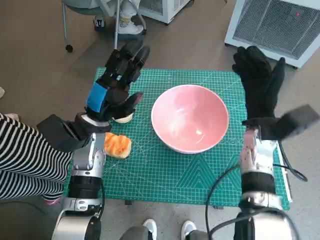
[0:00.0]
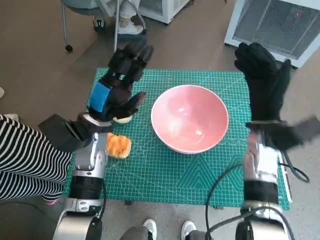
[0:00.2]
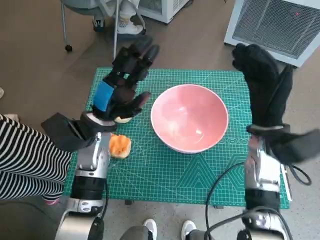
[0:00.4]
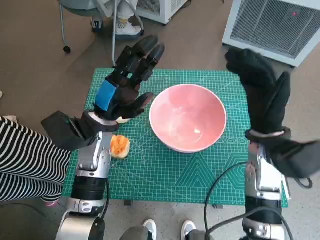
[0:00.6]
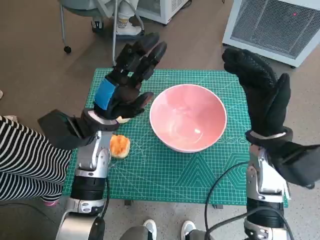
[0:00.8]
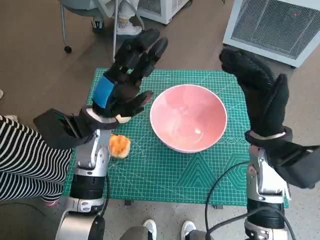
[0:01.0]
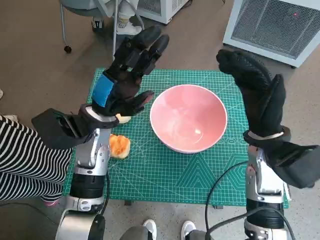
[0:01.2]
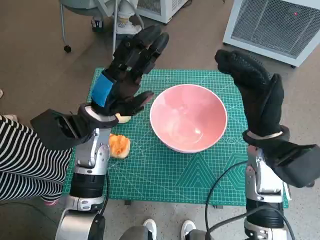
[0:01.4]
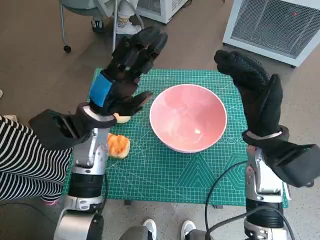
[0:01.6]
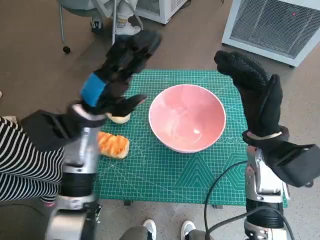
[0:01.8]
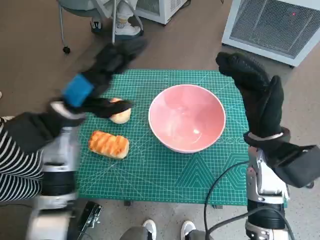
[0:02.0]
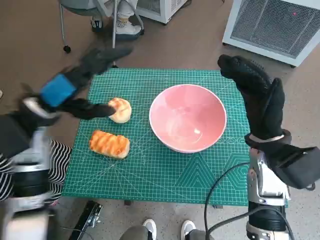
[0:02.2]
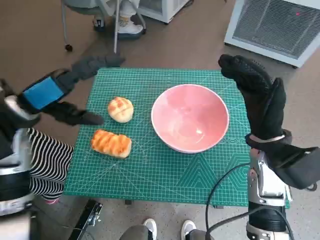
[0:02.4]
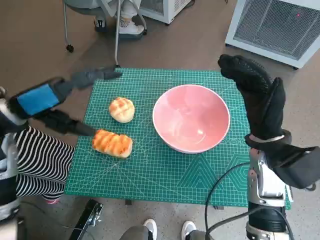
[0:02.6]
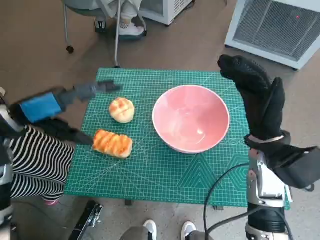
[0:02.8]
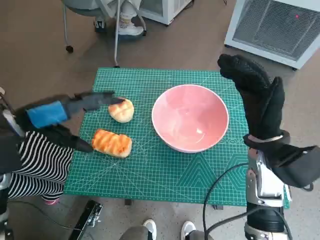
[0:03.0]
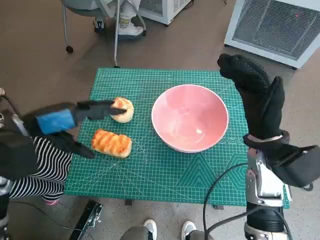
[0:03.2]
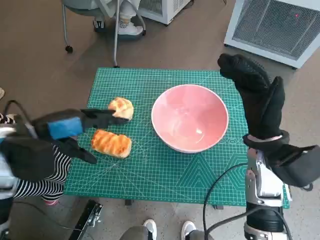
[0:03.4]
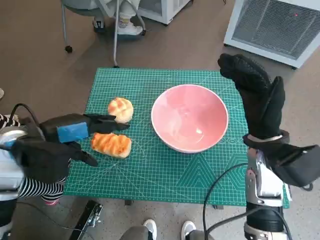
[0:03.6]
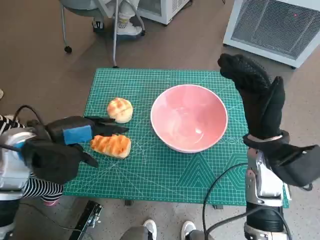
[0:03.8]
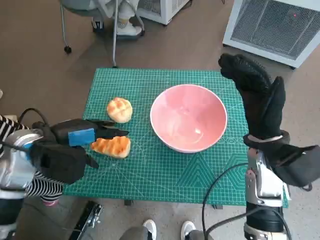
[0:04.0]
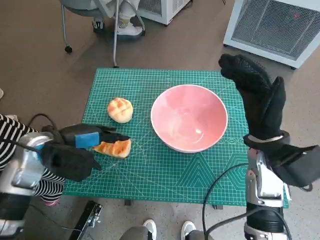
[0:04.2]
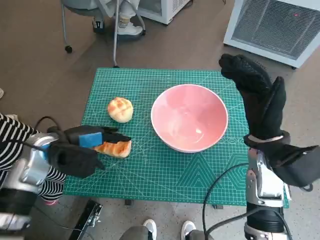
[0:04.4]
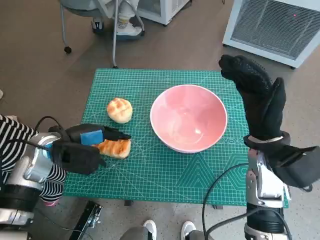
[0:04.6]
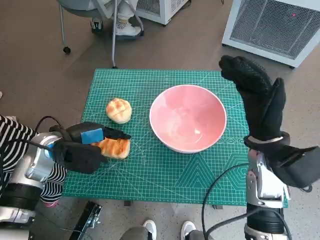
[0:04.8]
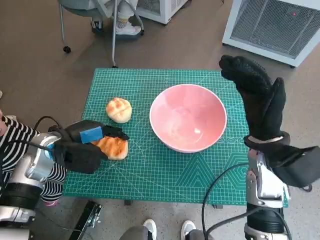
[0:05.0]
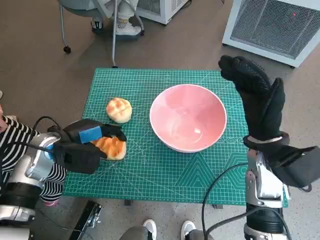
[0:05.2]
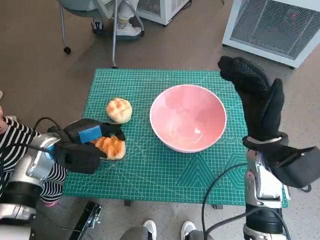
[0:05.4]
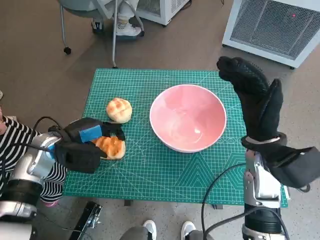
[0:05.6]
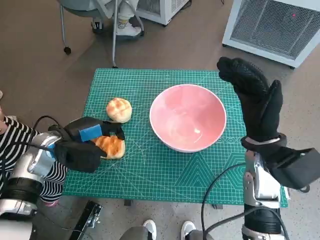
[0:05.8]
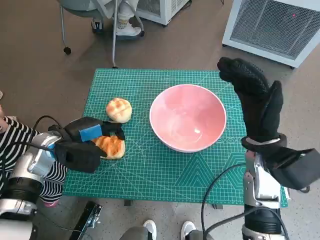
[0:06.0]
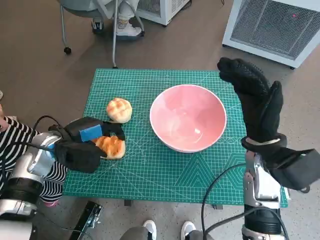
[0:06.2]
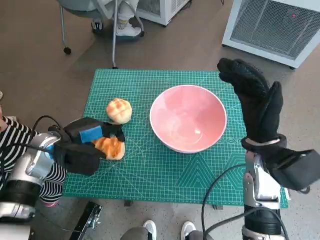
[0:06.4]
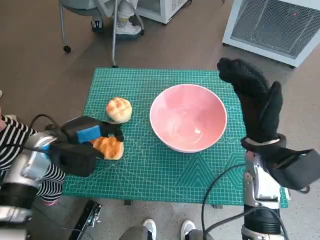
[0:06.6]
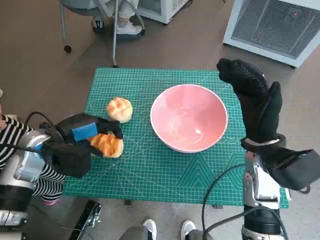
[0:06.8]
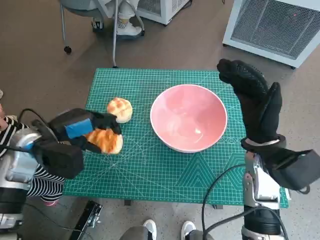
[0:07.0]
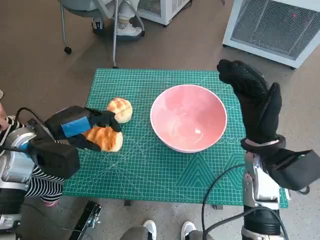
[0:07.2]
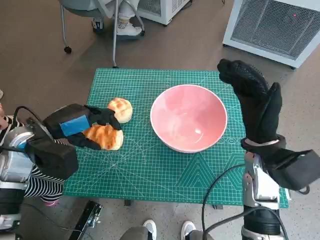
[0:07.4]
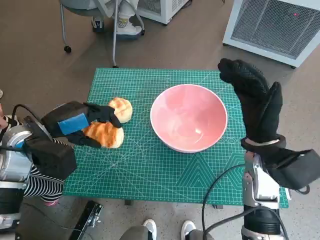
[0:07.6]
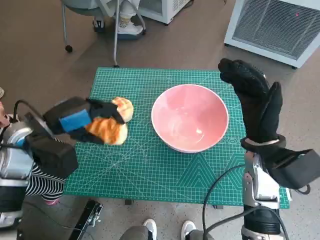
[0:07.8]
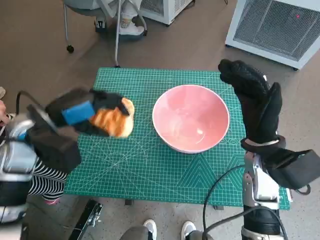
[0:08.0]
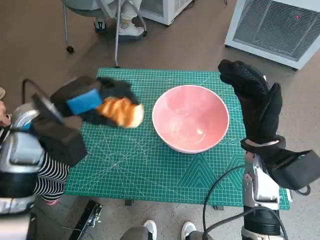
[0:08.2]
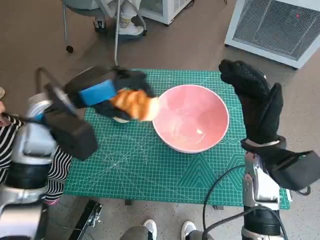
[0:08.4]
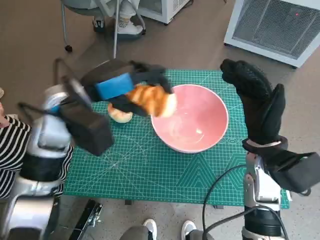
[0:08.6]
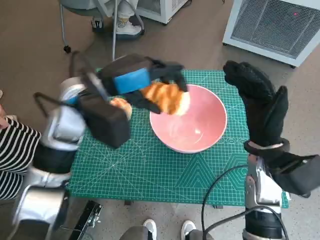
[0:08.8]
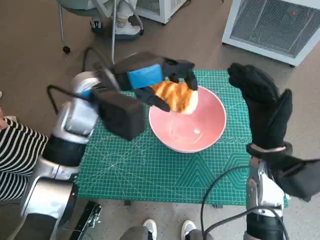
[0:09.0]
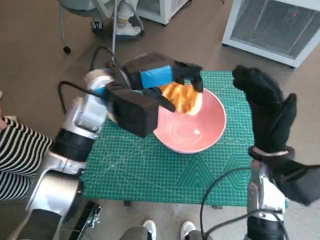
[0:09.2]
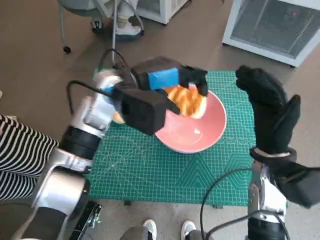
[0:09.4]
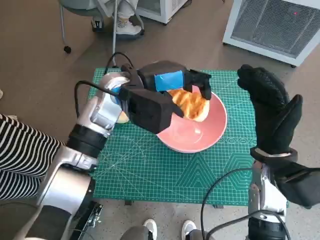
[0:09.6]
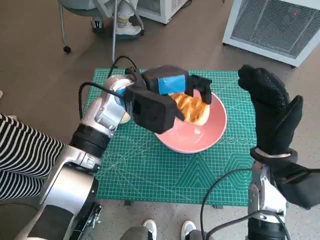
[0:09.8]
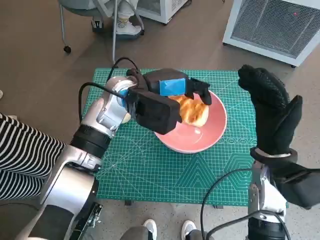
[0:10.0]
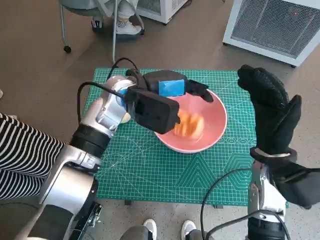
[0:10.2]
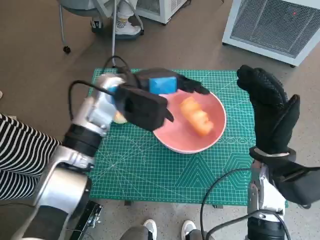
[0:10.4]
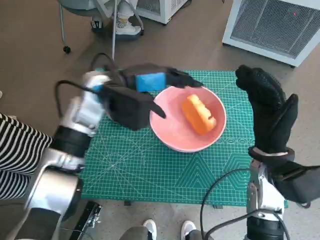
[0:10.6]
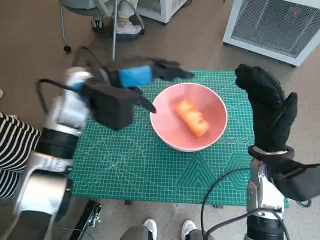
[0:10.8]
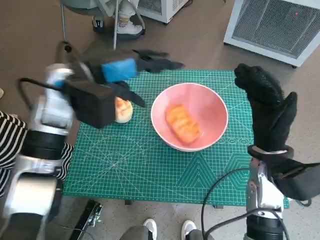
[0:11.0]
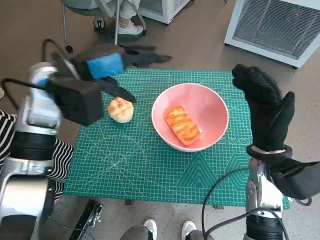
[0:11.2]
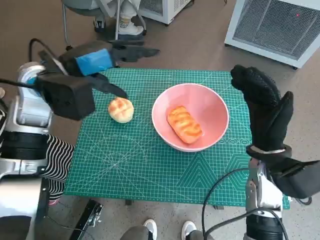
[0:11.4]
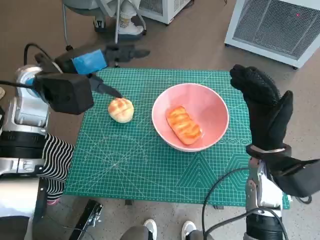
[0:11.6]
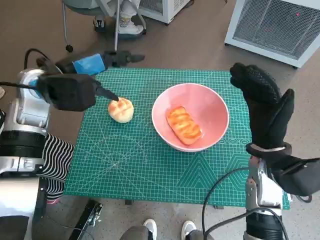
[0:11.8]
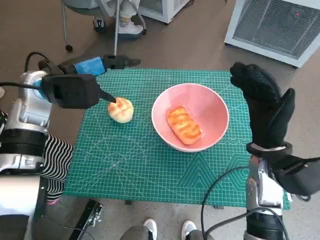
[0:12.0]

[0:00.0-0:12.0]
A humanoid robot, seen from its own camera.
Task of the whole recording: Push the bowl into the center of the table and put the bread into the bowl.
Step, 0:00.0 to 0:05.2: Grasp the long bread with left hand.
Step, 0:05.6 to 0:11.2: Place the long bread in pink bowl with left hand.
0:00.0 to 0:01.6: The right hand goes roughly 5 cm backward.
0:01.6 to 0:03.0: The left hand moves to the left and upward, some 15 cm.
0:03.0 to 0:04.4: The left hand is displaced downward by approximately 10 cm.
0:04.4 to 0:06.0: There are only small adjustments of the hands.
0:06.0 to 0:07.6: The left hand moves upward, roughly 5 cm.
0:07.6 to 0:09.0: The left hand moves to the right, upward and forward, about 15 cm.
0:09.0 to 0:10.4: The left hand shifts by about 5 cm.
0:10.4 to 0:12.0: The left hand moves to the left, approximately 15 cm.

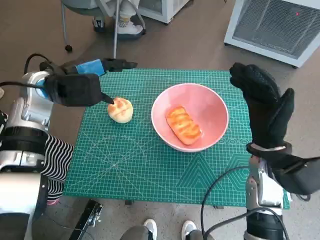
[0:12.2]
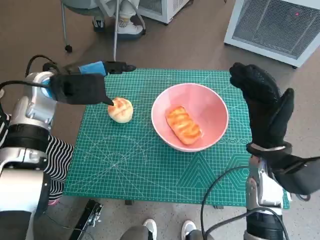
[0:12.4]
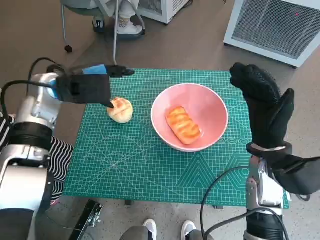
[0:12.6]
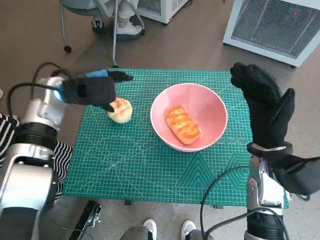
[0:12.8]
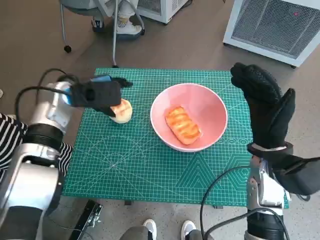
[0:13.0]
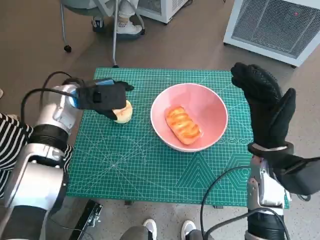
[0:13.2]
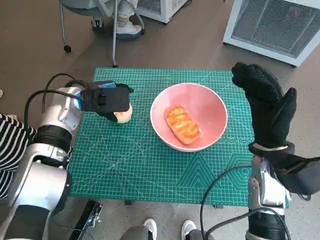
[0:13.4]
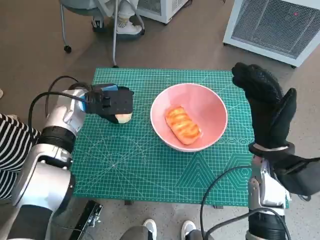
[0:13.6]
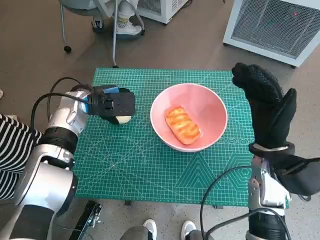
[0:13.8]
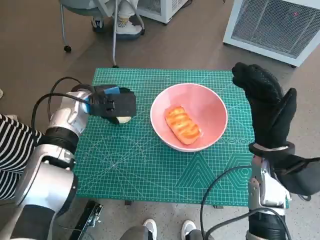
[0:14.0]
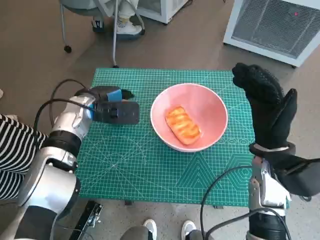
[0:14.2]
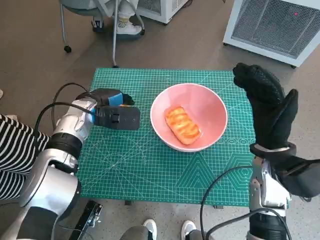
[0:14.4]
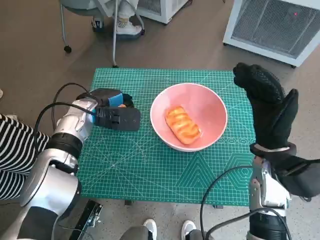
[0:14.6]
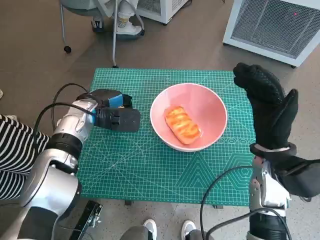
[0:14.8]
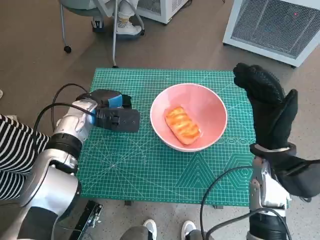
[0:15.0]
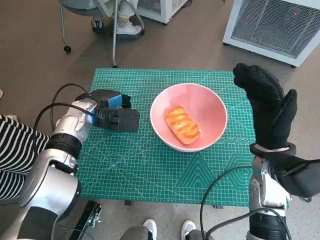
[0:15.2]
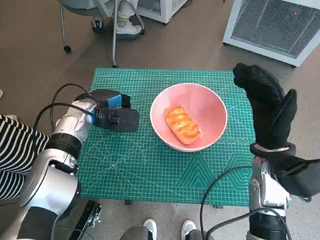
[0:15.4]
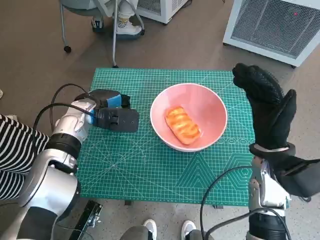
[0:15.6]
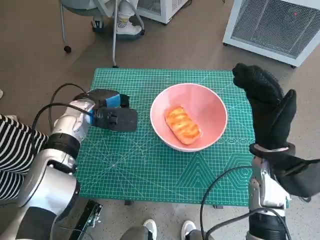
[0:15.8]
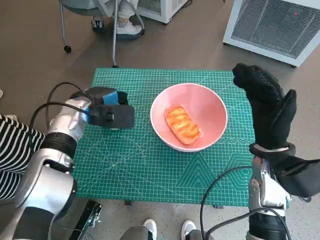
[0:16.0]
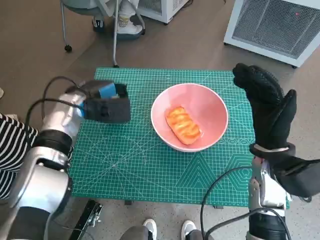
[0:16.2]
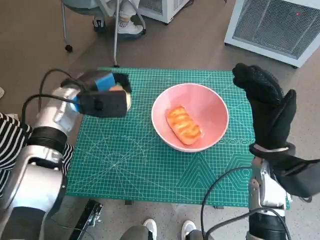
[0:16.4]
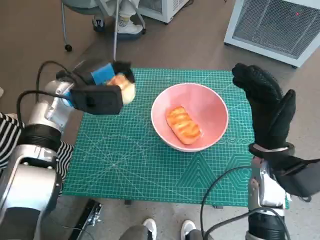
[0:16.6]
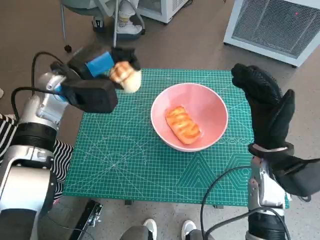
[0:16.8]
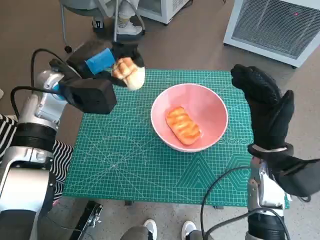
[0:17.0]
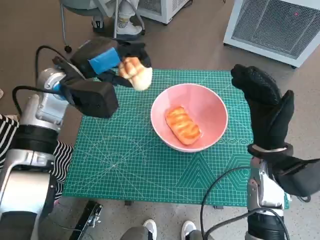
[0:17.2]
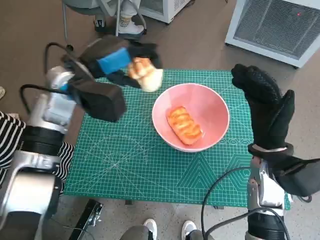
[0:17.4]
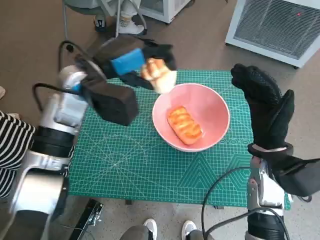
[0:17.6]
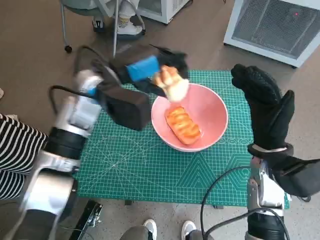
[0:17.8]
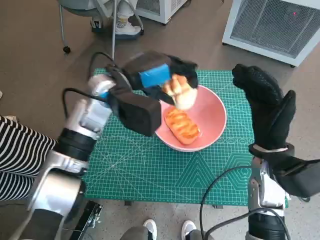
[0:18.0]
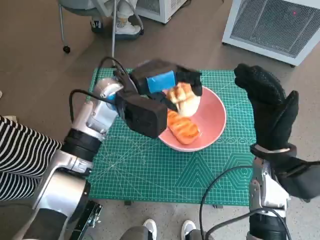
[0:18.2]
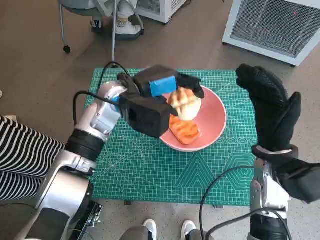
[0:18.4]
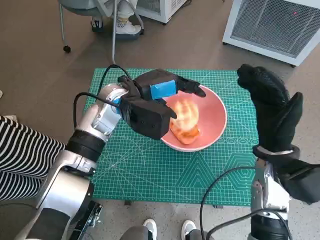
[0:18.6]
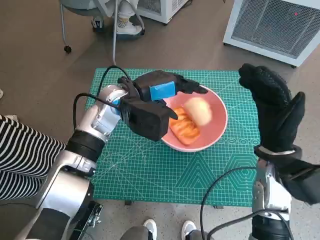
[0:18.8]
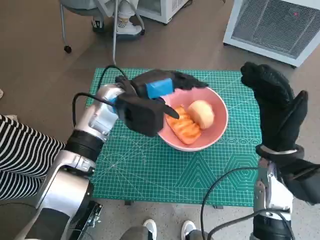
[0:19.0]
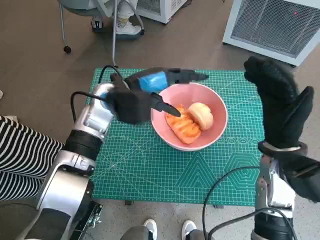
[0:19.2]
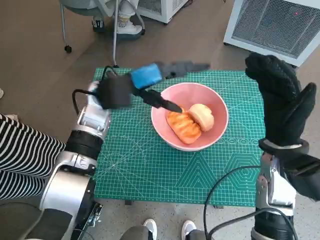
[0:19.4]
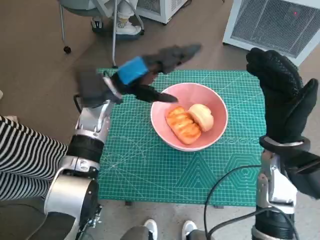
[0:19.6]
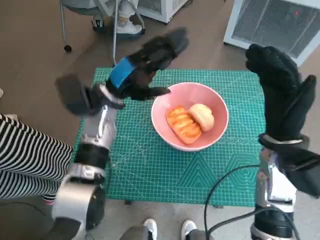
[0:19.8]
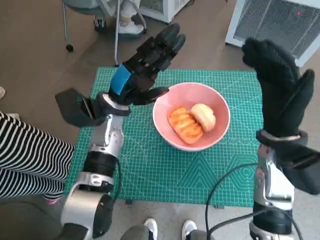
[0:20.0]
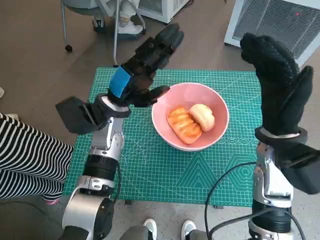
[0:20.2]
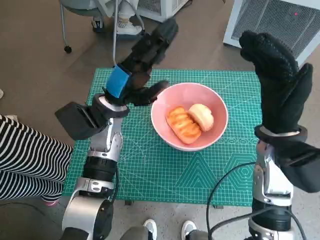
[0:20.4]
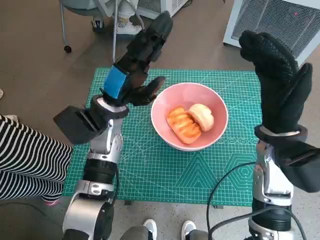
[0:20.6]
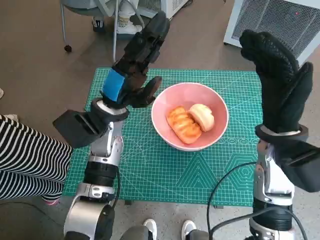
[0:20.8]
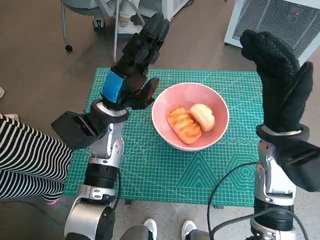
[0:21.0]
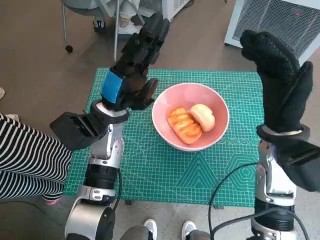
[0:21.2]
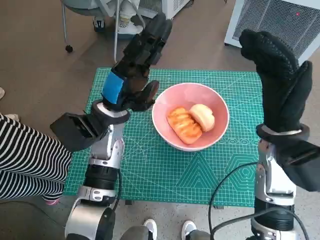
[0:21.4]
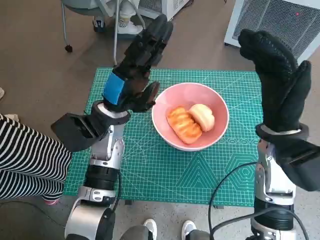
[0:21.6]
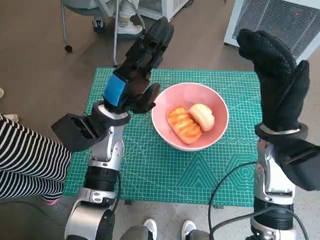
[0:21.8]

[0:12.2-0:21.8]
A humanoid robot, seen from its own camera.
Task of the whole recording: Push the bowl into the center of the table and put the bread into the bowl.
Step, 0:12.2 to 0:15.2: Grasp the round bread with left hand.
Step, 0:15.4 to 0:19.0: Place the round bread in pink bowl with left hand.
0:12.2 to 0:13.8: The left hand shifts roughly 5 cm downward.
0:13.8 to 0:15.4: There are only small adjustments of the hands.
0:15.4 to 0:17.0: The left hand travels upward by approximately 10 cm.
0:17.0 to 0:18.6: The left hand goes approximately 10 cm to the right.
0:20.2 to 0:21.8: The hands move only a little.
